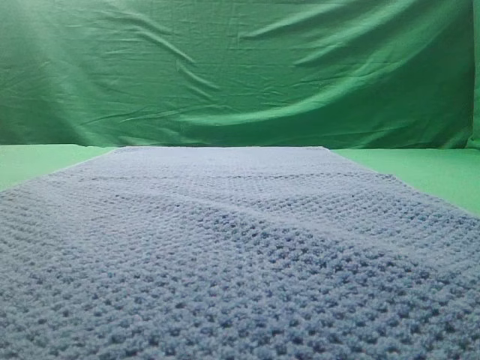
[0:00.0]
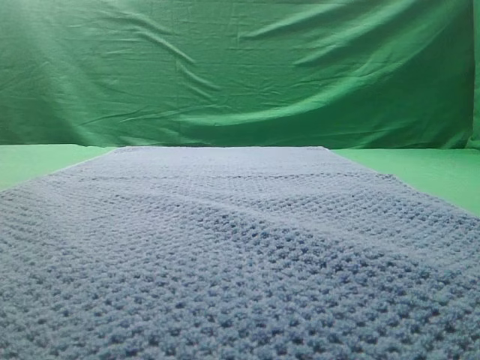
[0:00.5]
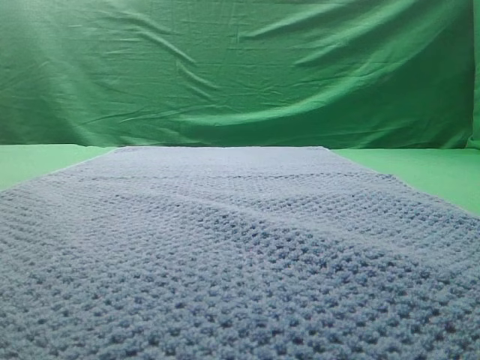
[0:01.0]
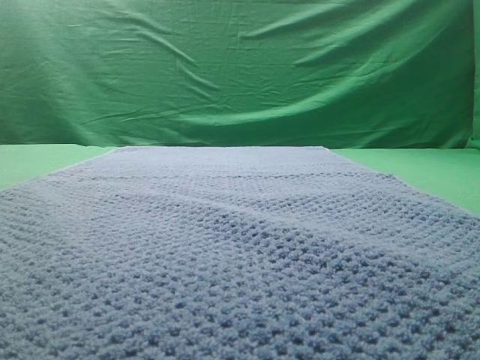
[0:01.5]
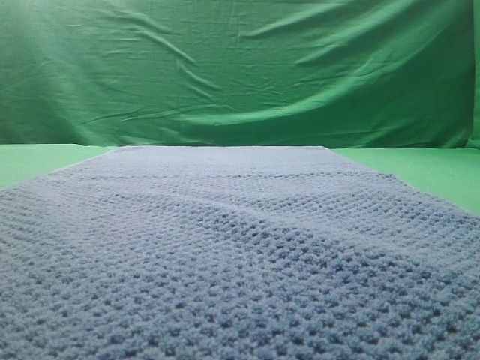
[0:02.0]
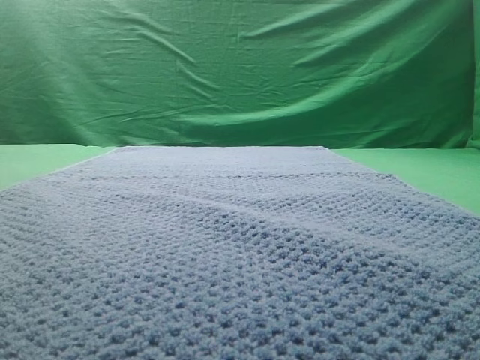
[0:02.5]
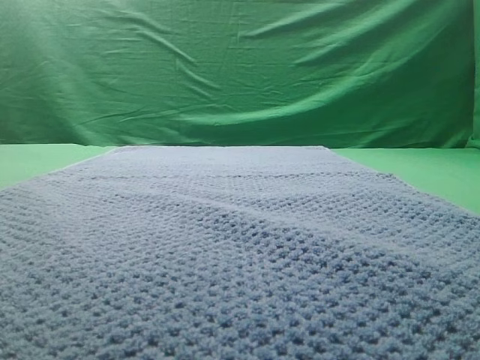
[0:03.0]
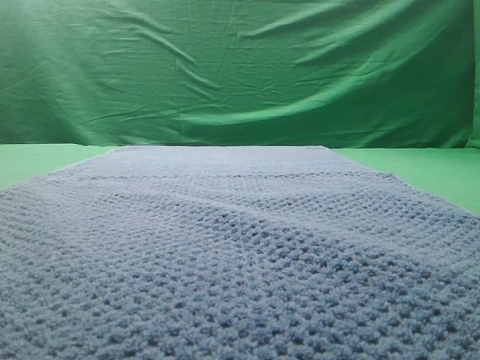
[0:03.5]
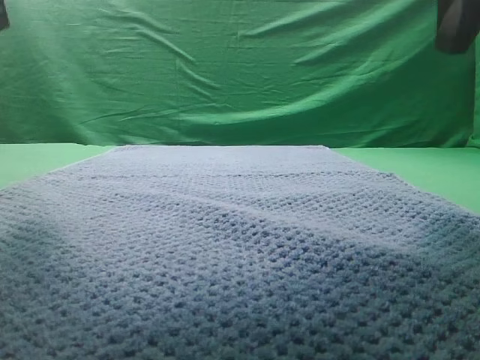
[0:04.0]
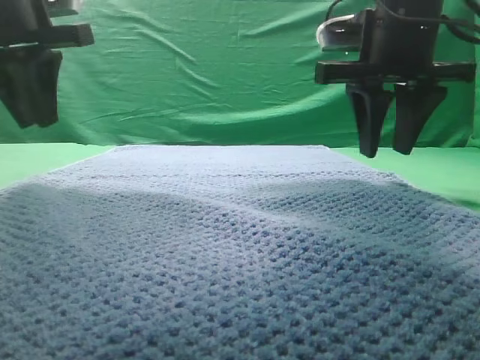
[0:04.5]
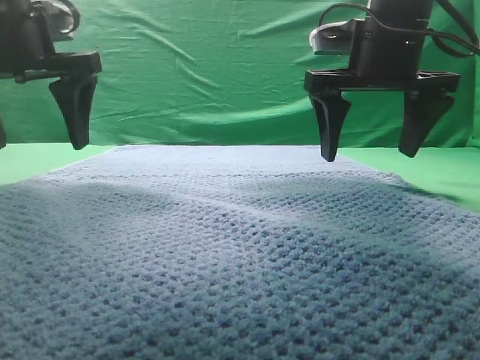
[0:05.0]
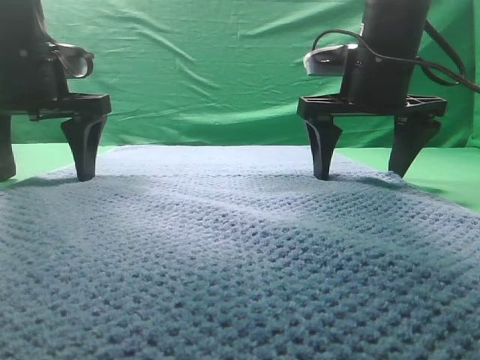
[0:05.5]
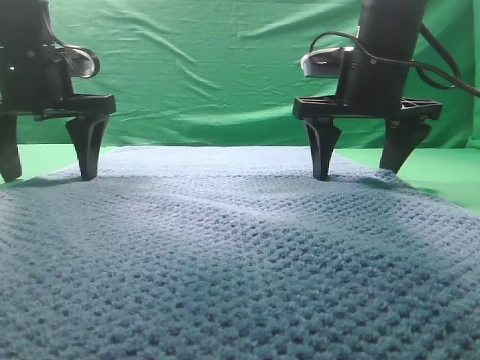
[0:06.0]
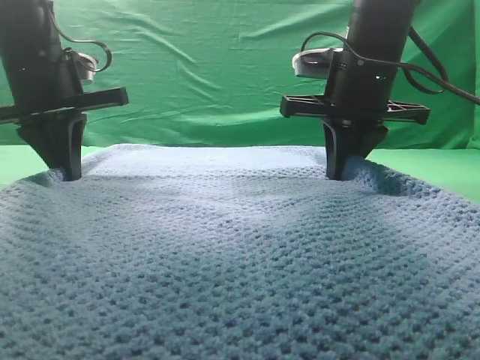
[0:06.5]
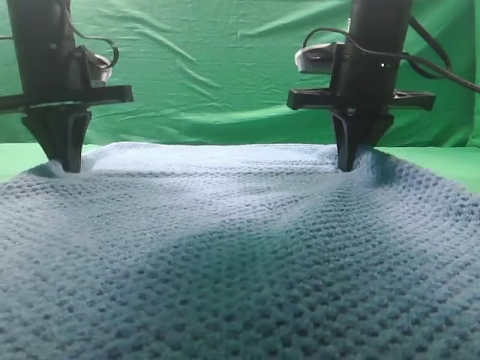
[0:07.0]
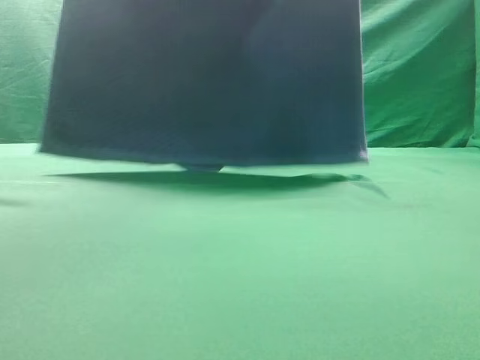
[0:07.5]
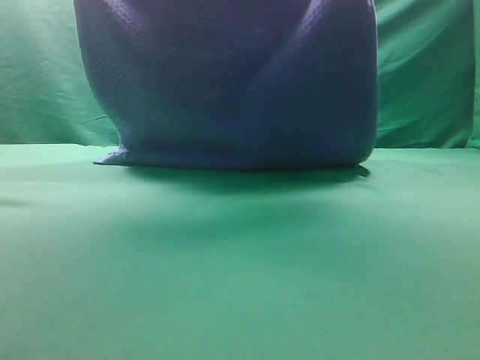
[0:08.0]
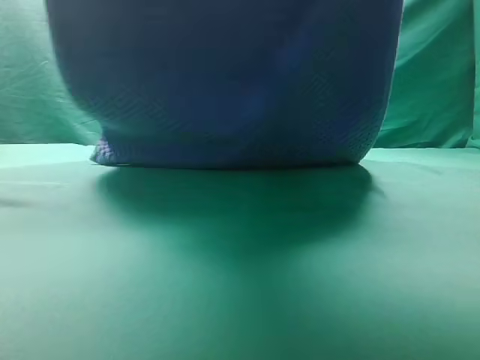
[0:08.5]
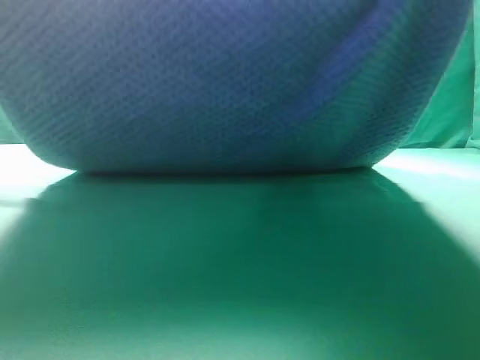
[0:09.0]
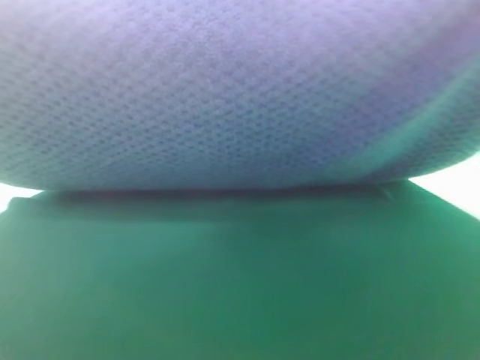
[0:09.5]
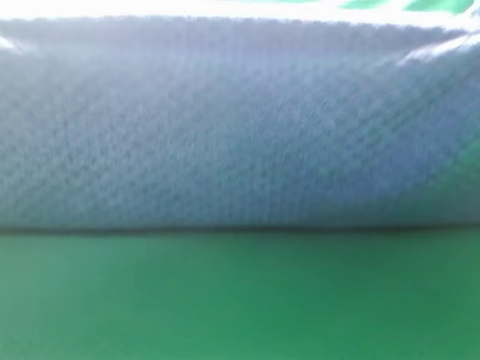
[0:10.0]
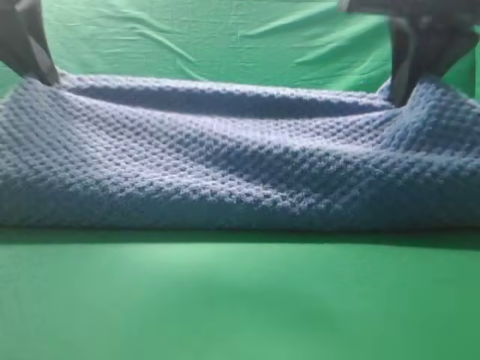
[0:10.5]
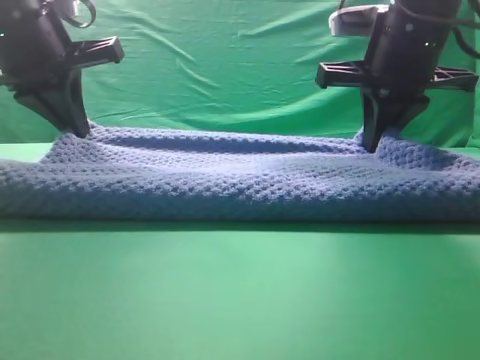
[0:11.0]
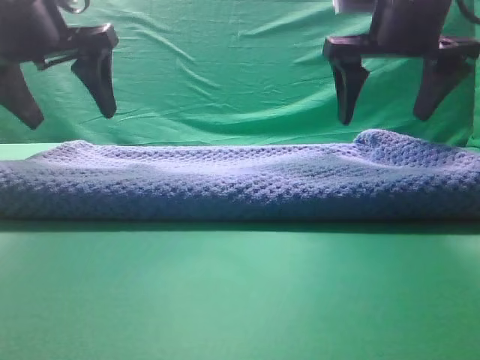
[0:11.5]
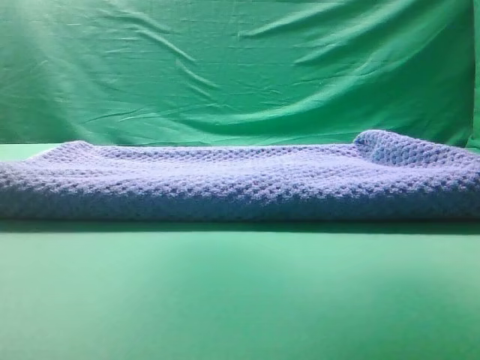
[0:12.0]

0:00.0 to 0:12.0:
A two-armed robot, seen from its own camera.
Task of the whole recording: fold the towel on the table twice.
Step, 0:00.0 to 0:07.5: pick up the towel with two arm.
Step, 0:08.0 to 0:11.5: Fold the towel twice on the table.
